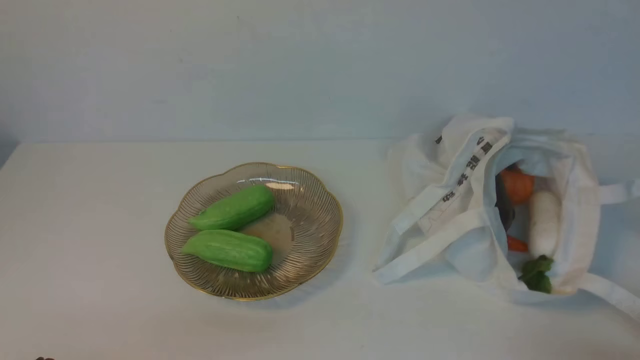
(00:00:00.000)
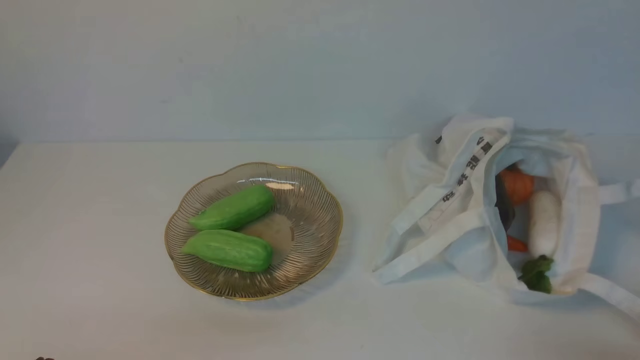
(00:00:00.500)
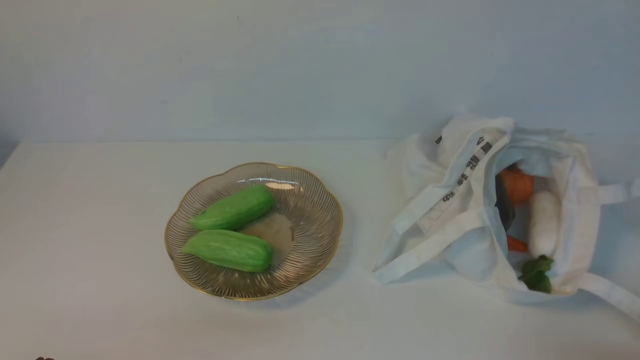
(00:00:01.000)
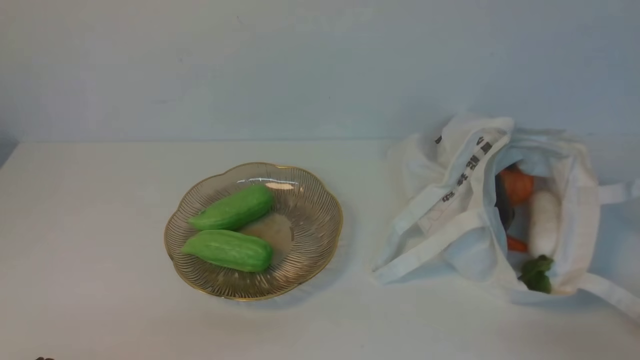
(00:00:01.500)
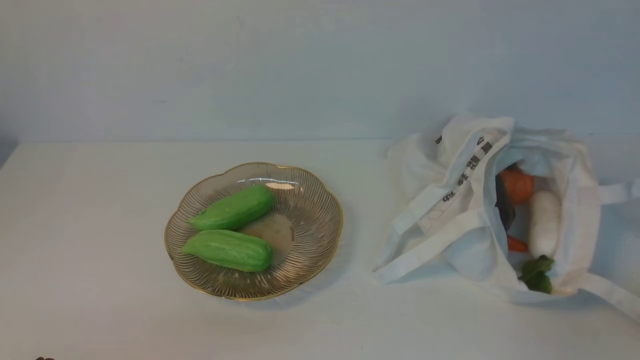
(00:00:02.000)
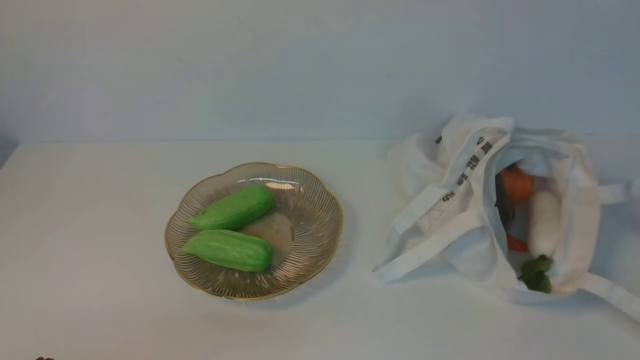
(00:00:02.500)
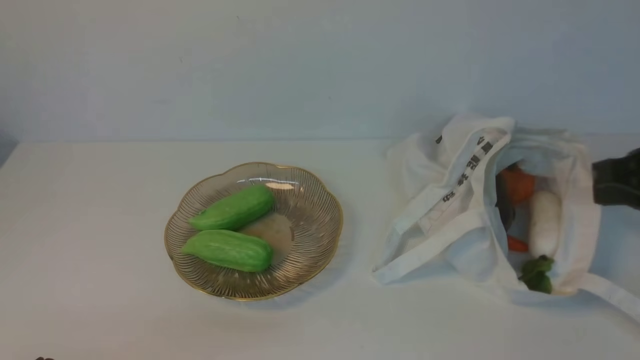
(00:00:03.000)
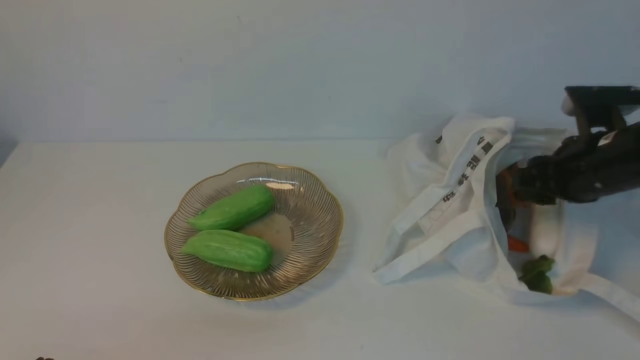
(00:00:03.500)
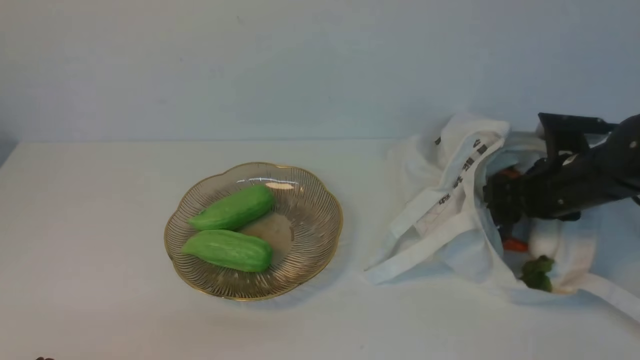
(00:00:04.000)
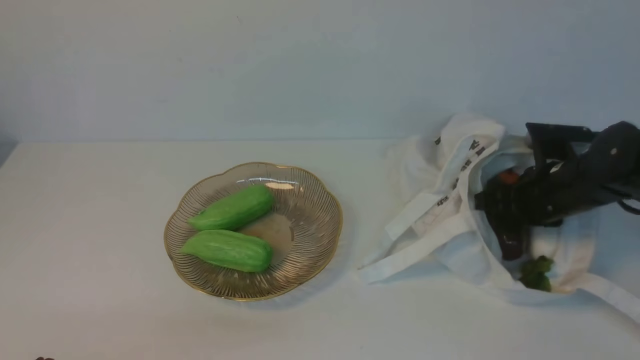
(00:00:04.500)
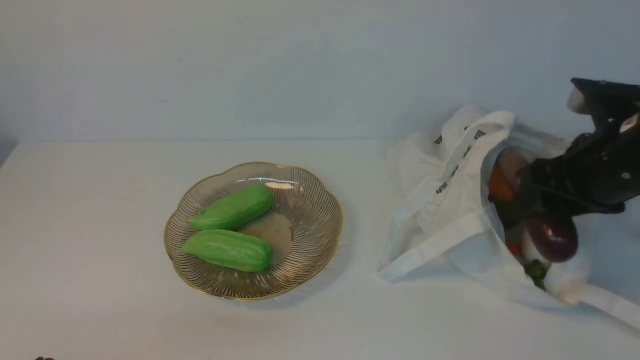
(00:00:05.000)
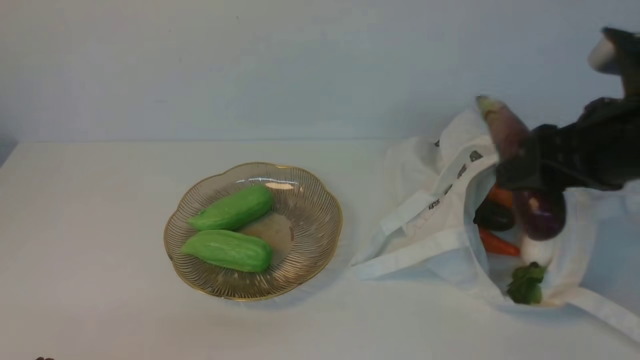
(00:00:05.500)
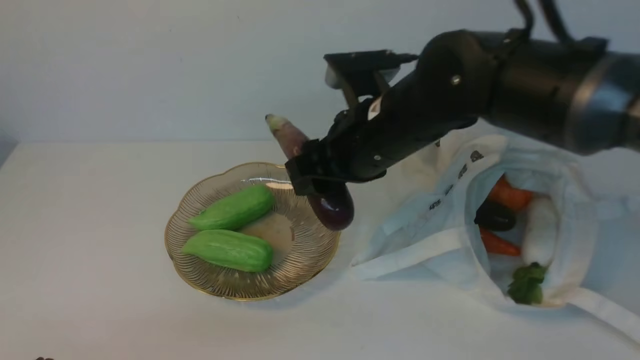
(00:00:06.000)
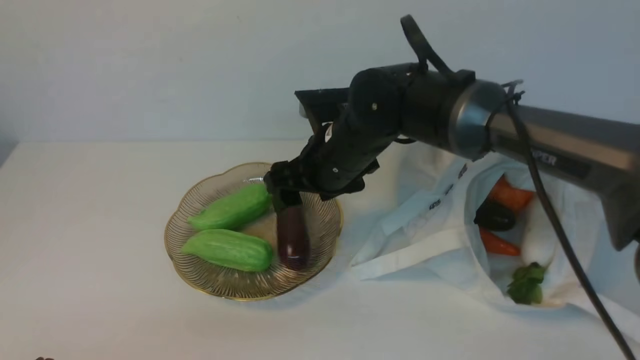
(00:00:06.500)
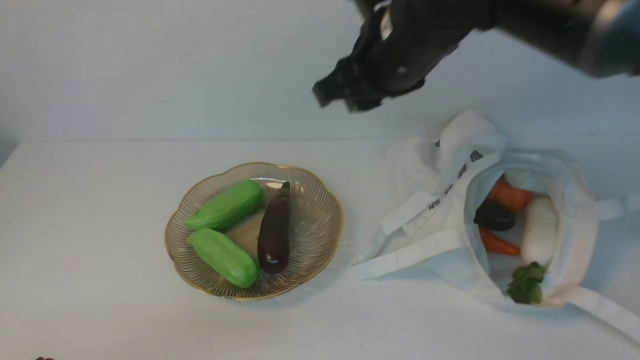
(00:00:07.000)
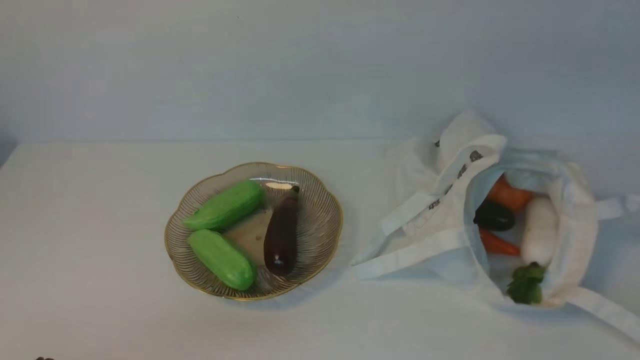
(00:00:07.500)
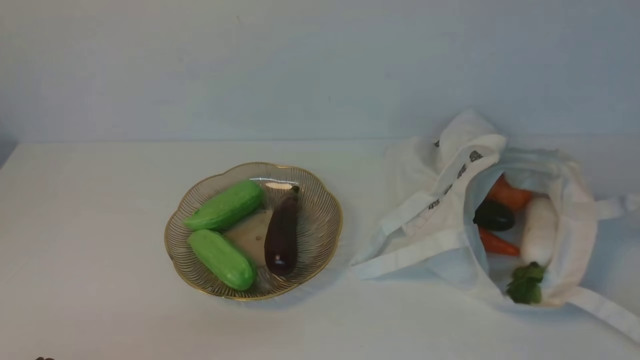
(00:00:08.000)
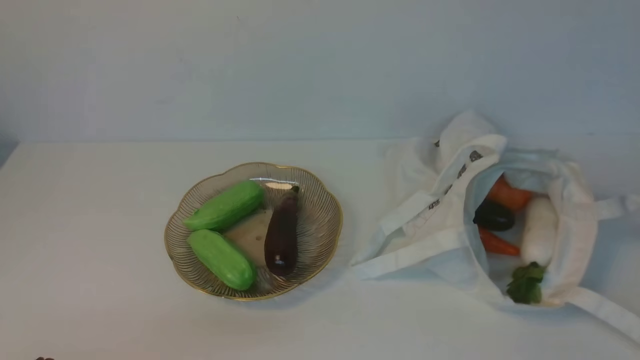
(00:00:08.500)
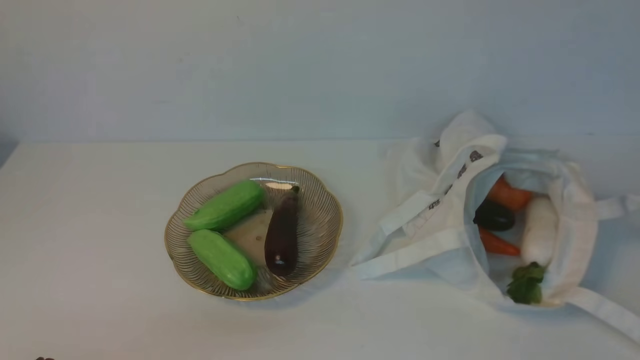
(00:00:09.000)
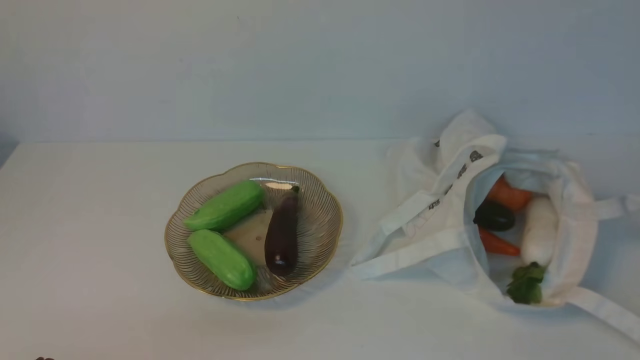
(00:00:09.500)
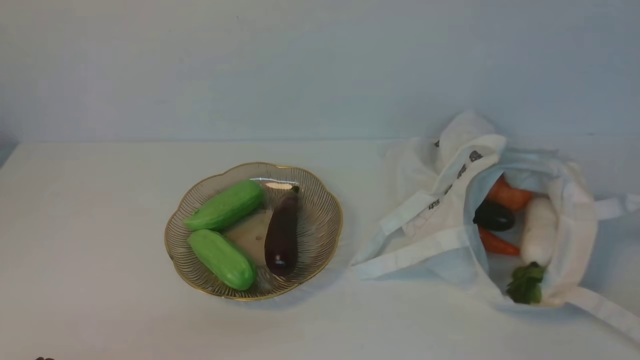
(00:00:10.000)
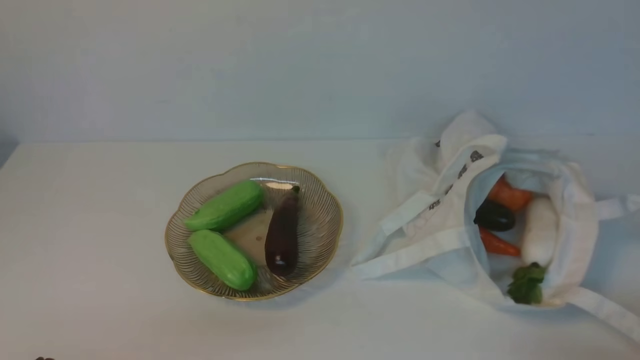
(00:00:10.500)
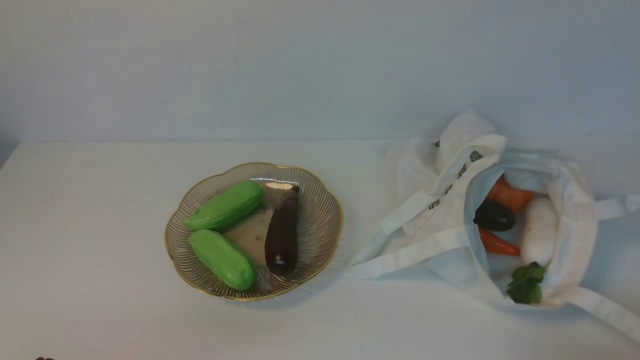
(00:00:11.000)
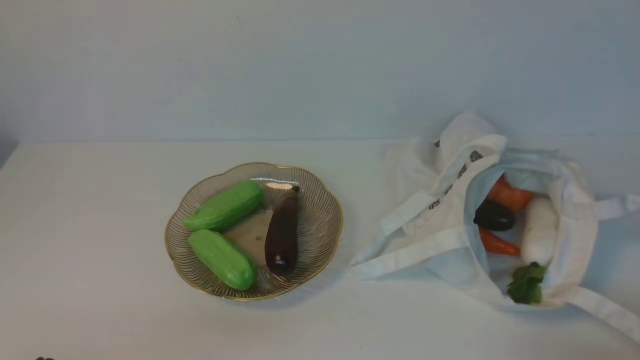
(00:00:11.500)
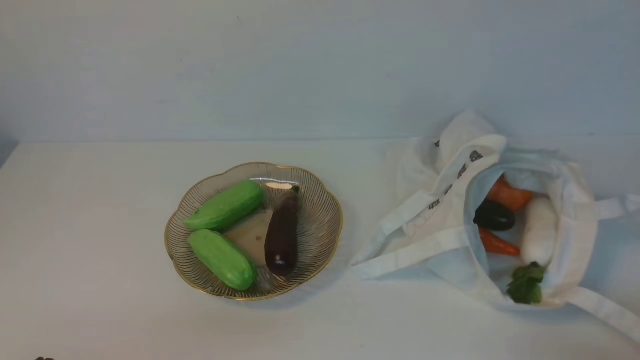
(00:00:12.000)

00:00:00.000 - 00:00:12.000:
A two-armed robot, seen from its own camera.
Task of the whole recording: take vegetables from cloth bag on white table place on plate.
Step, 00:00:00.000 - 00:00:04.000: Grasp the eggplant with right gripper.
Step, 00:00:04.500 - 00:00:06.500: Place the eggplant on the plate with right gripper.
00:00:02.000 - 00:00:04.000: The right gripper moves forward, roughly 30 cm, and opens its fingers.
00:00:04.000 - 00:00:06.000: The right gripper shifts roughly 25 cm to the left and upward.
00:00:06.000 - 00:00:08.000: The right gripper shifts about 35 cm backward, to the right and upward, and closes up.
